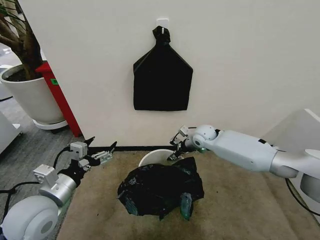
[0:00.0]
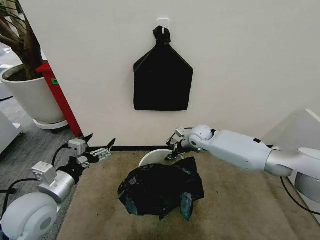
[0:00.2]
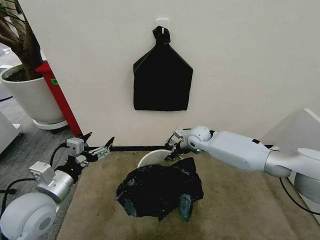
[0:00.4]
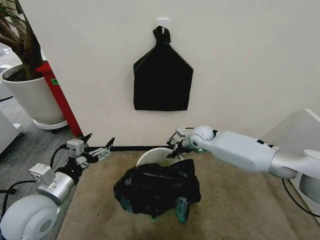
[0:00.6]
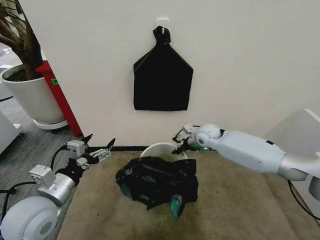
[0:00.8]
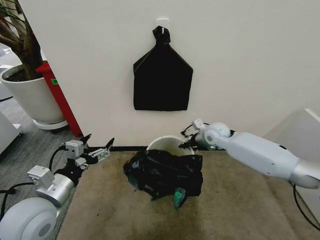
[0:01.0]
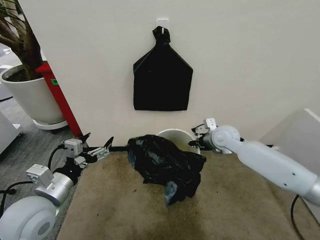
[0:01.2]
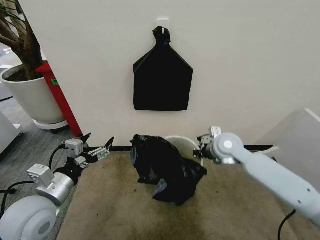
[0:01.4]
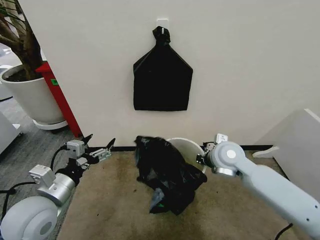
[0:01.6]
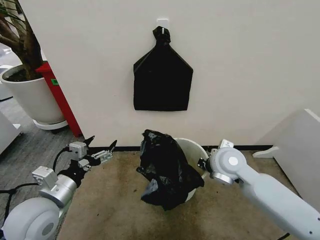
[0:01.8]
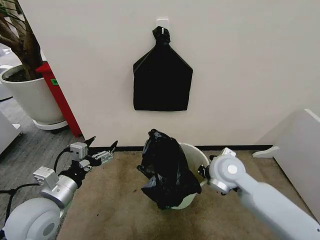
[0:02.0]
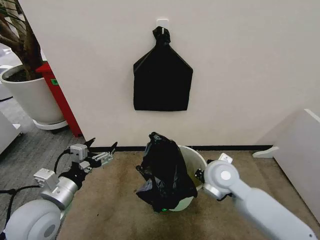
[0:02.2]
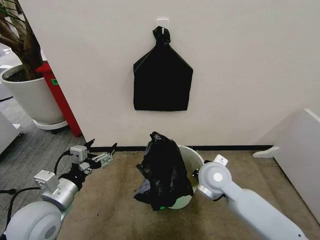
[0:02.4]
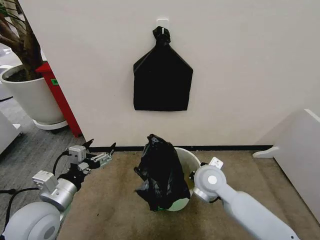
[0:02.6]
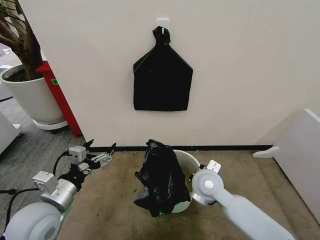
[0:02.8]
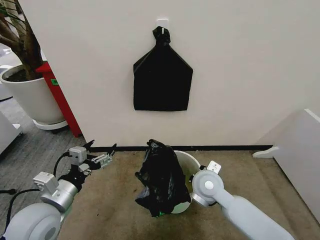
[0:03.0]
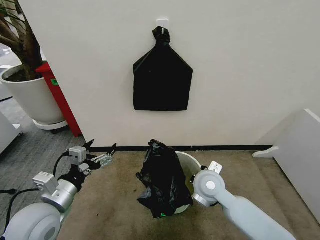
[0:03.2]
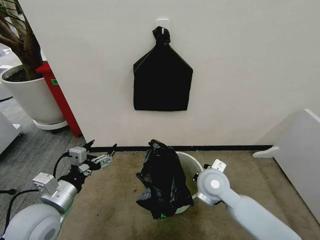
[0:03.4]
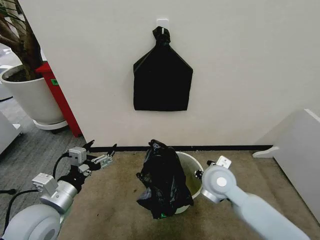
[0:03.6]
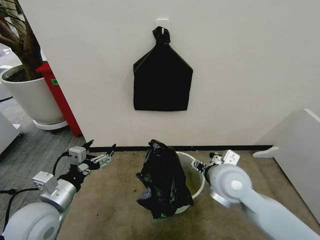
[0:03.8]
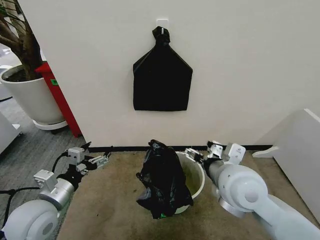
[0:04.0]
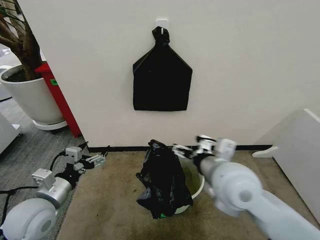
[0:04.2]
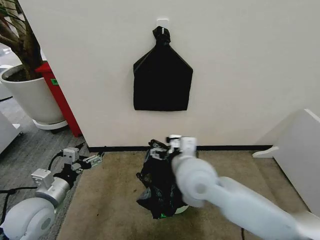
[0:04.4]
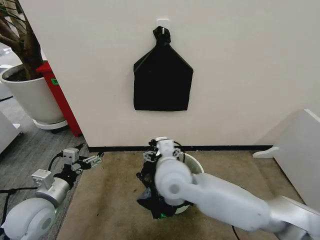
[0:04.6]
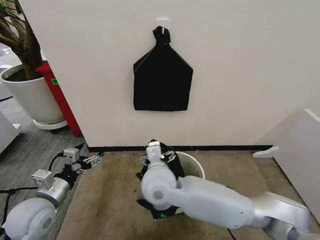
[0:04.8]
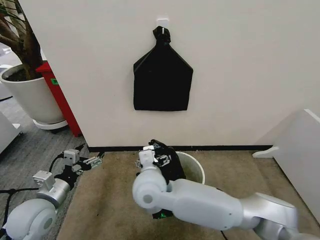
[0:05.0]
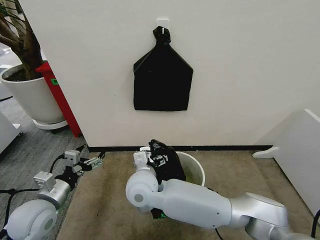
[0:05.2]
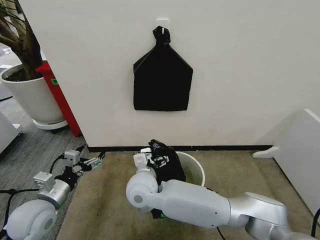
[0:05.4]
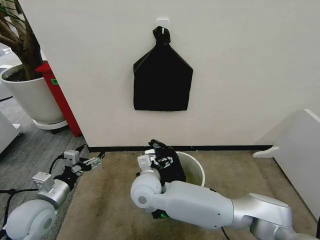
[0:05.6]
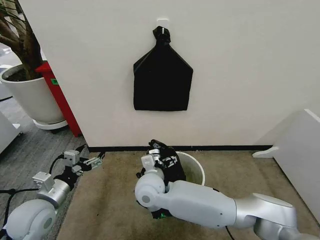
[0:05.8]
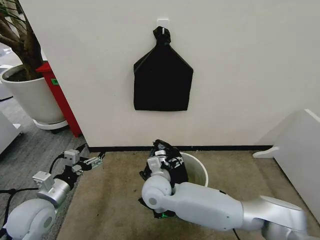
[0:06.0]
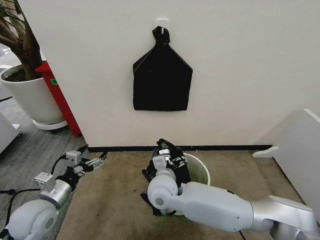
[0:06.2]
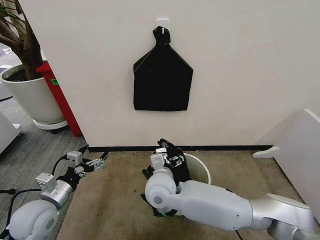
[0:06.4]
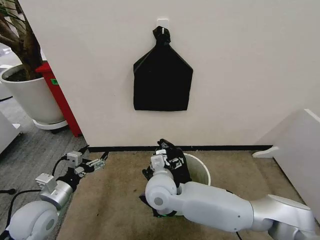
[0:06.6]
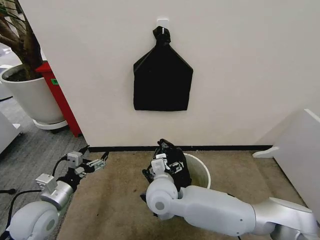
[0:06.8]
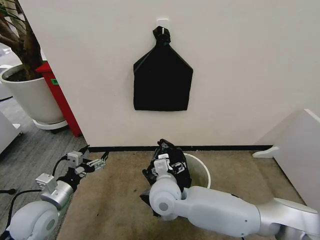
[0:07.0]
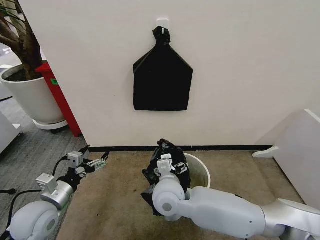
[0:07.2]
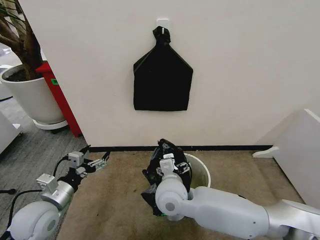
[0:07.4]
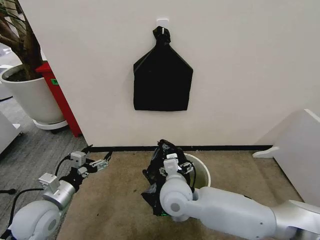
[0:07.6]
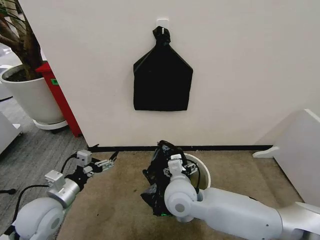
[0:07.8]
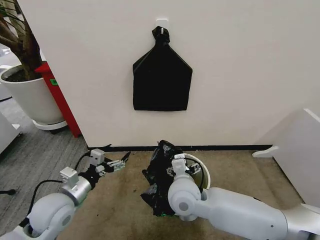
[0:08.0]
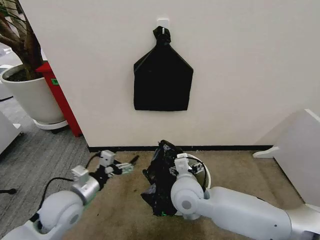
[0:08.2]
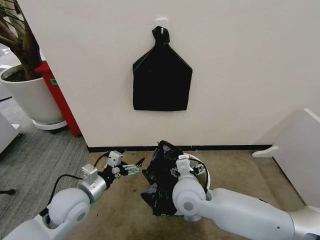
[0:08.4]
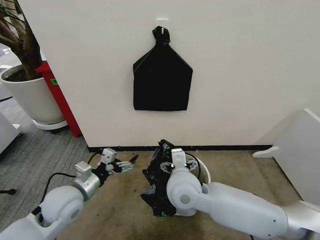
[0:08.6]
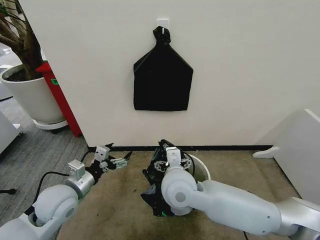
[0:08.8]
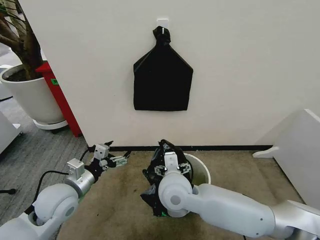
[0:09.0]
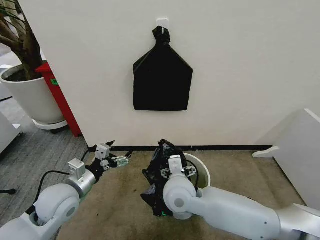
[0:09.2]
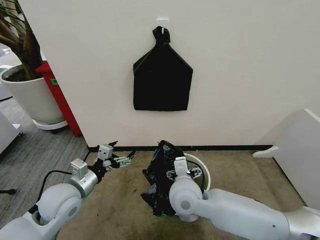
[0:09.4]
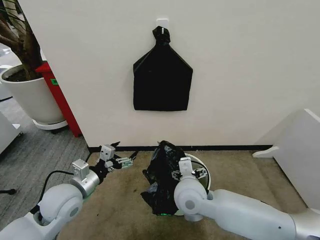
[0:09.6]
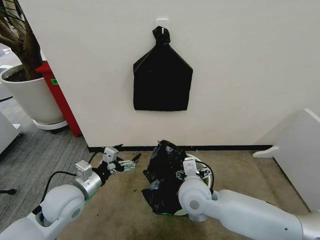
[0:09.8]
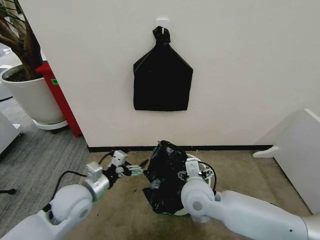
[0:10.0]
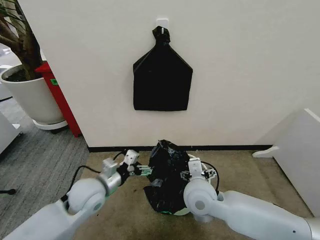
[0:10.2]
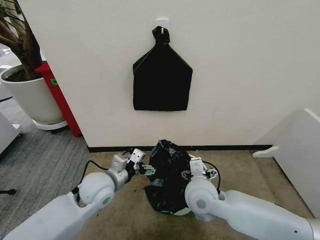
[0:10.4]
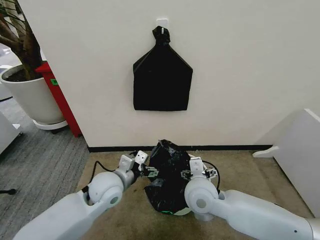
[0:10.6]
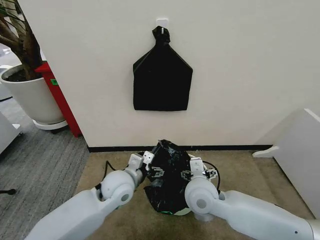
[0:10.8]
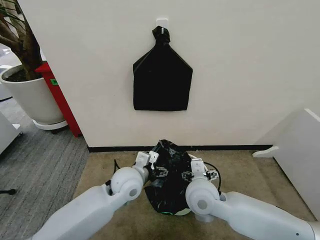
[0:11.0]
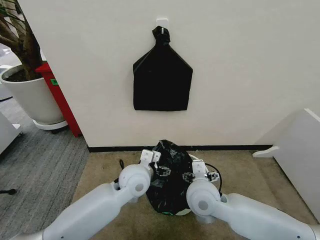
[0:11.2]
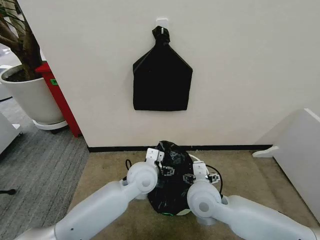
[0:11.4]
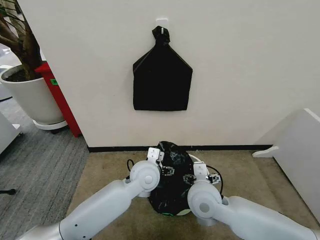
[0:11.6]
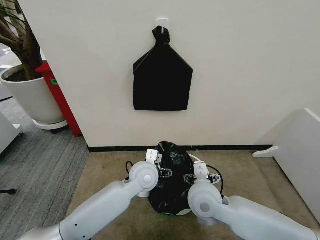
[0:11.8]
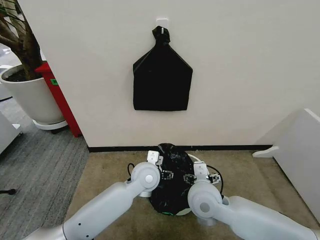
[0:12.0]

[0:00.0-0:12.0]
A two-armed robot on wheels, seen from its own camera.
Task of the whole recording: Place the garbage bag over the trash bin.
0:00.0 to 0:01.6: The right gripper shifts approximately 15 cm backward and upward, and closes up.
0:01.6 to 0:03.0: The right gripper goes roughly 10 cm downward, to the left and backward.
0:03.0 to 0:04.4: The left gripper changes place by about 5 cm. Meanwhile the right gripper travels upward by some 10 cm, and opens its fingers.
0:04.4 to 0:06.0: The right gripper is displaced downward and to the left by approximately 20 cm.
0:06.0 to 0:07.6: The right gripper moves to the right, about 5 cm.
0:07.6 to 0:09.0: The left gripper changes place by roughly 5 cm.
0:09.0 to 0:10.4: The two grippers go some 10 cm to the right.
0:10.4 to 0:12.0: The left gripper moves to the right, about 15 cm.

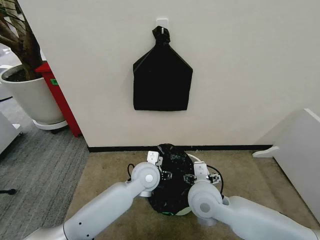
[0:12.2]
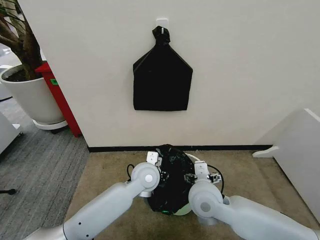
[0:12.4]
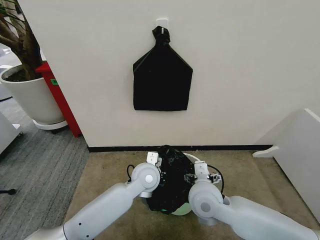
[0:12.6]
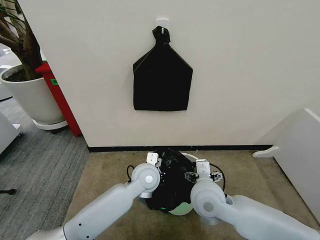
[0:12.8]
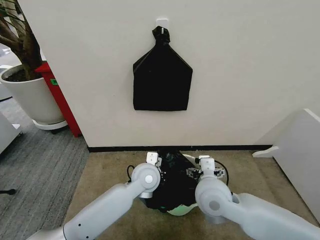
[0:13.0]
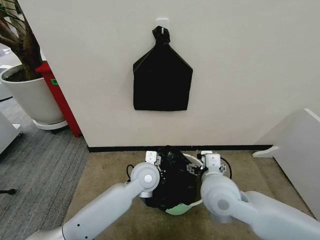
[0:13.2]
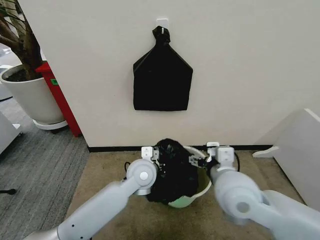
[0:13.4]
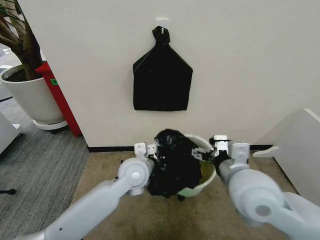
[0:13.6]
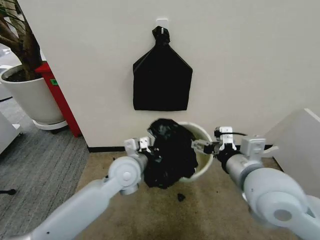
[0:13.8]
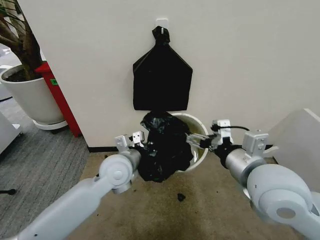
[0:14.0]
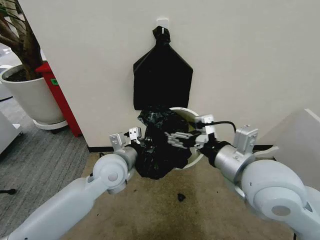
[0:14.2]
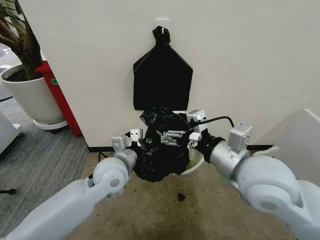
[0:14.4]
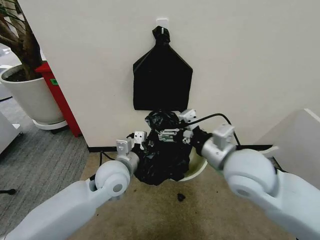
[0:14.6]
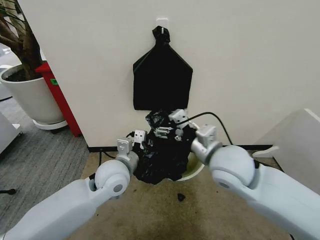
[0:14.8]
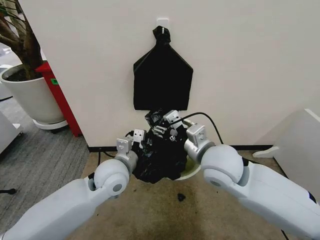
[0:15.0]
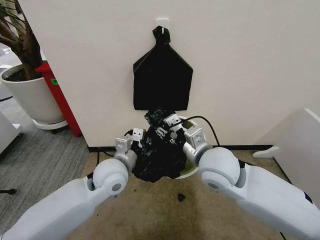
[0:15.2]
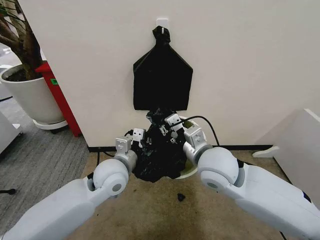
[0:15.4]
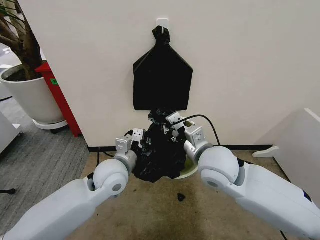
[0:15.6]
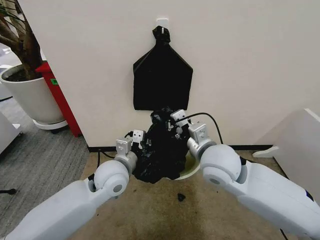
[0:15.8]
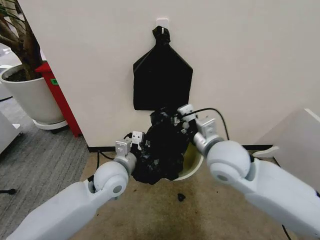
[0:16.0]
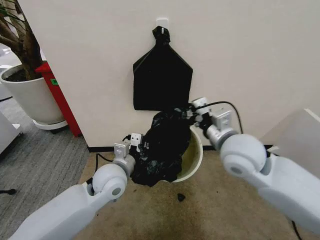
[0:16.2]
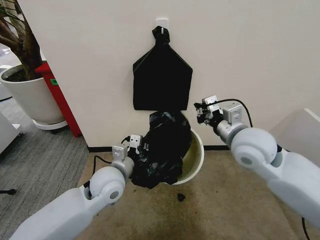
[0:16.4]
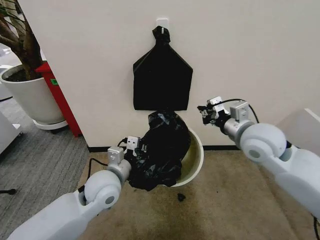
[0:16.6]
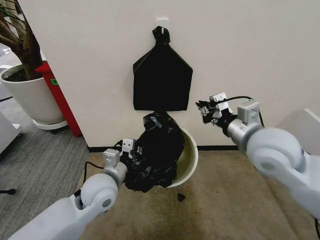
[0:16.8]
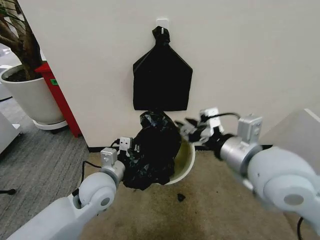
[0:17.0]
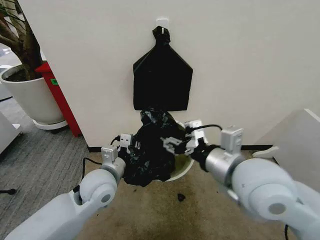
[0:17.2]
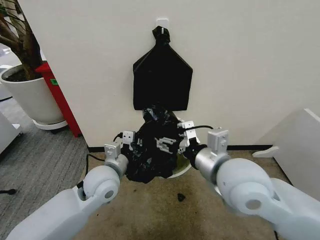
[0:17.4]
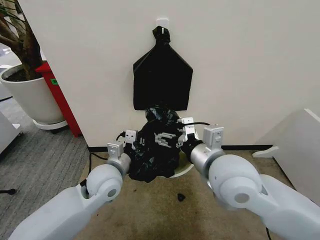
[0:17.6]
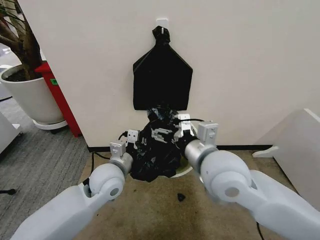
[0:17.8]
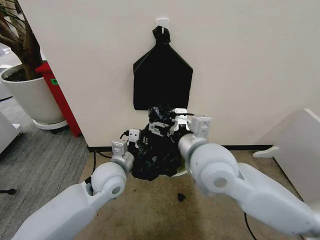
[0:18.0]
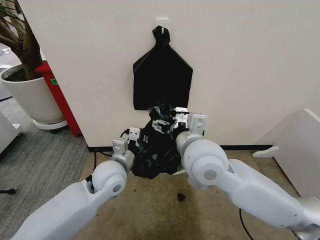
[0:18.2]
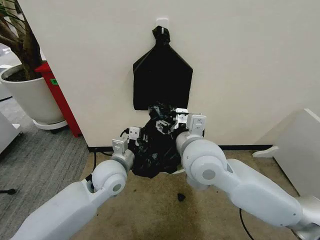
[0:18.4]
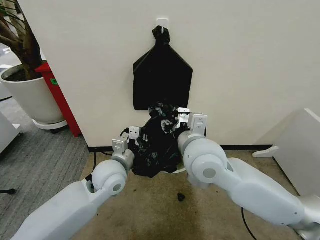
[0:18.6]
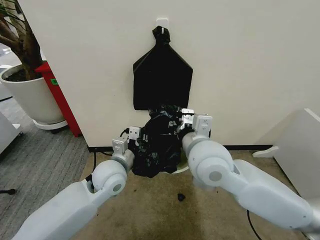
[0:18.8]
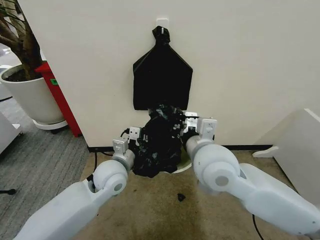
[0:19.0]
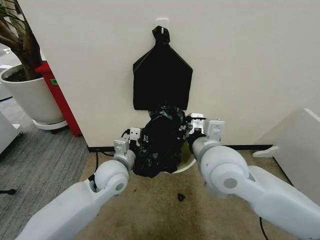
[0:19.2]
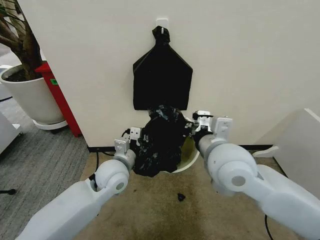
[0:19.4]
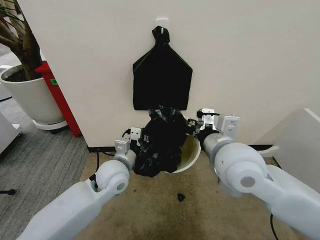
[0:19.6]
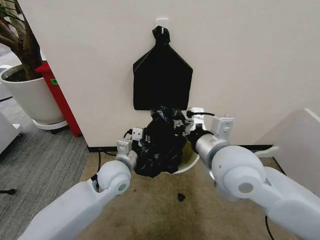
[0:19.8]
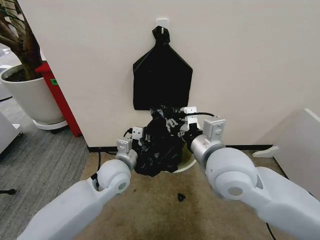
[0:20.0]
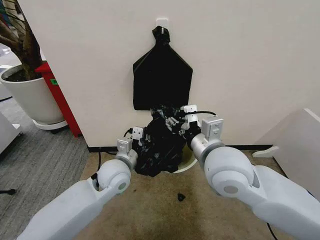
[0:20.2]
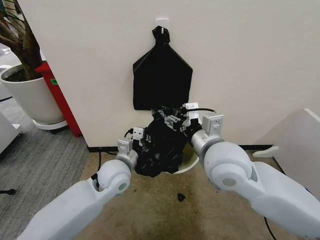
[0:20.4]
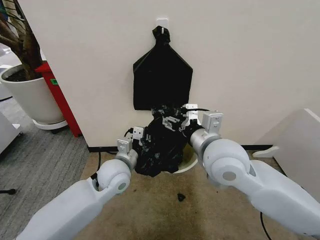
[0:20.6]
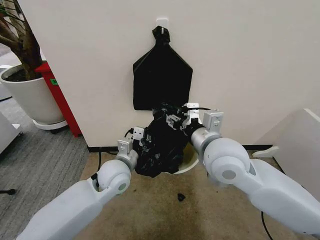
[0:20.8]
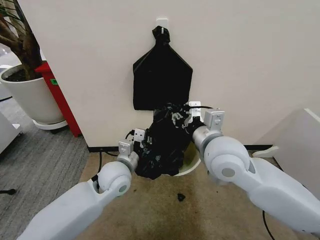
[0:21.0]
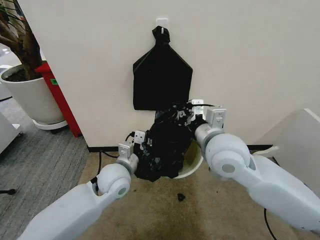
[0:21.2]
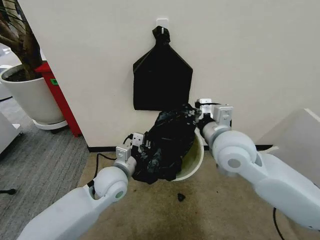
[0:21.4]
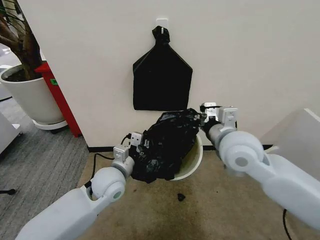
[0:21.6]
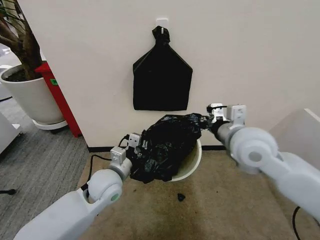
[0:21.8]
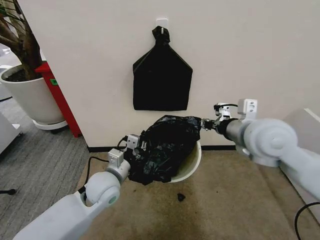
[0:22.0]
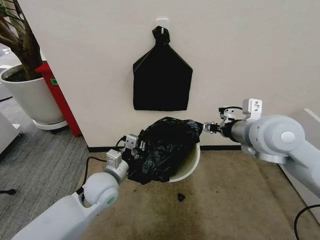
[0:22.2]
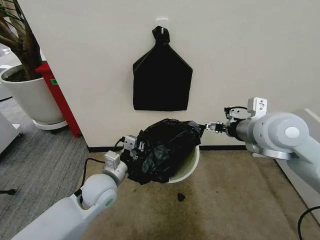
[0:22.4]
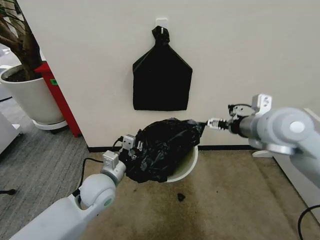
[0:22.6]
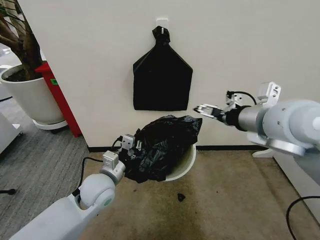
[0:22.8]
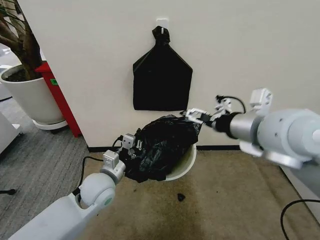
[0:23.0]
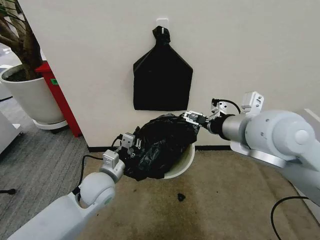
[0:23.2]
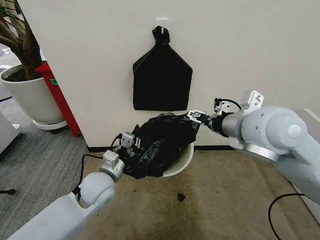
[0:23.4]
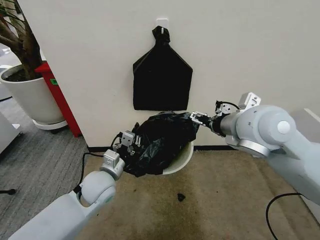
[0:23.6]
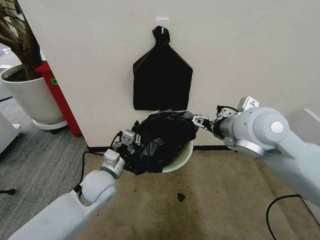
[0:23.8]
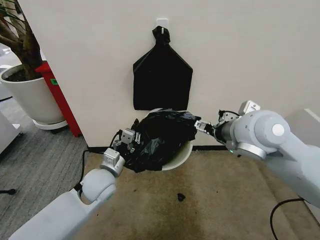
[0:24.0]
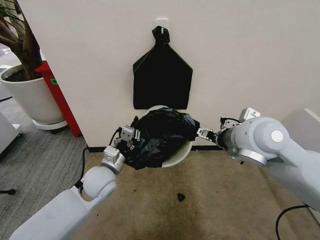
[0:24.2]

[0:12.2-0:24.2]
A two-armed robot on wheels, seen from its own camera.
Task of the whole recording: Place the garbage bag over the trash bin.
0:12.2 to 0:13.8: The left gripper moves to the left and upward, approximately 10 cm, and closes up; the right gripper travels upward and to the right by roughly 20 cm.
0:13.8 to 0:15.2: The right gripper moves forward and to the left, about 10 cm, and closes up.
0:15.2 to 0:16.6: The right gripper shifts approximately 15 cm to the right and forward, and closes.
0:16.6 to 0:18.2: The right gripper is displaced to the left by roughly 15 cm, and opens its fingers.
0:18.2 to 0:19.8: The right gripper heads to the right, covering approximately 5 cm, and closes its fingers.
0:19.8 to 0:21.2: The right gripper opens, then closes once more.
0:21.2 to 0:22.6: The left gripper shifts by some 5 cm. Meanwhile the right gripper moves to the right and upward, roughly 15 cm, and opens.
0:22.6 to 0:24.2: The right gripper shifts some 5 cm to the left.
